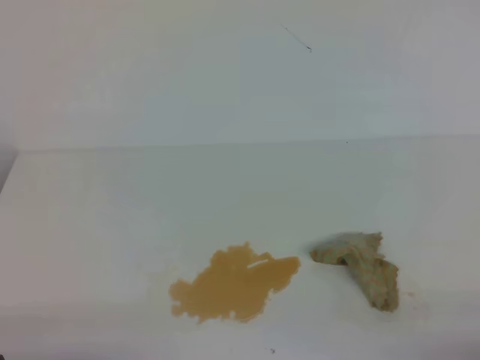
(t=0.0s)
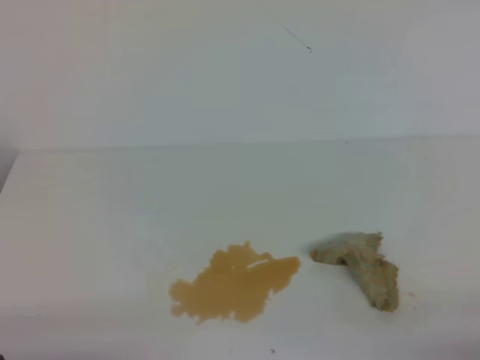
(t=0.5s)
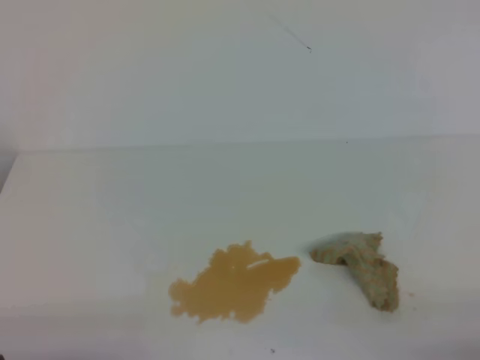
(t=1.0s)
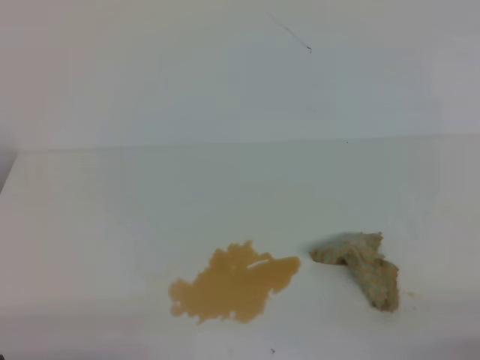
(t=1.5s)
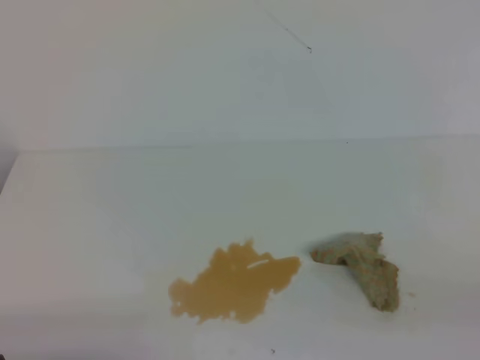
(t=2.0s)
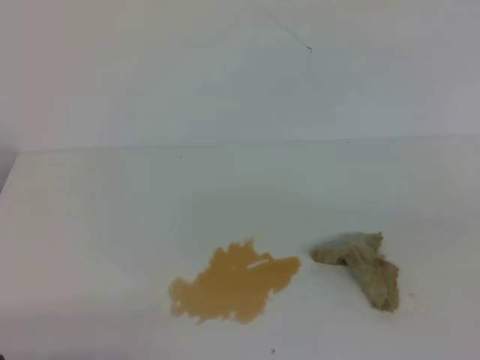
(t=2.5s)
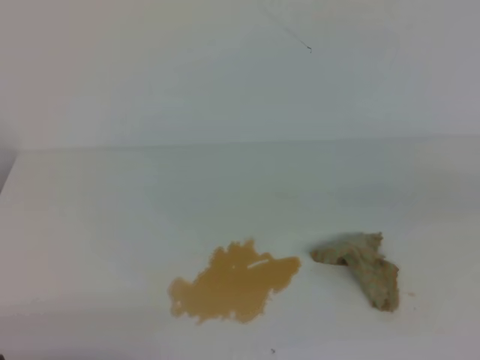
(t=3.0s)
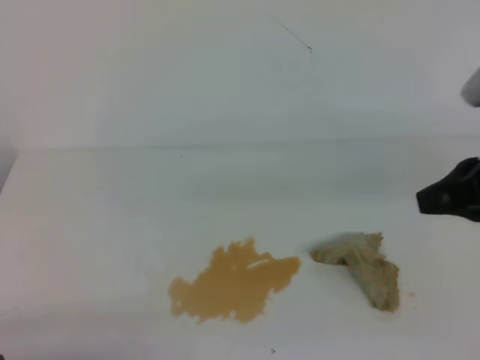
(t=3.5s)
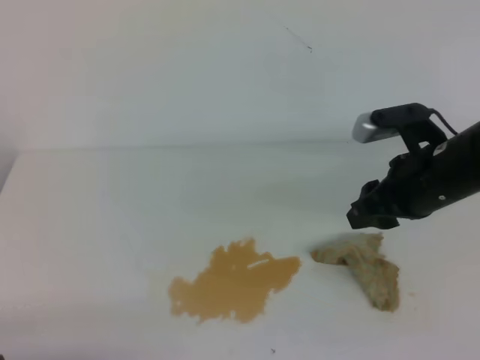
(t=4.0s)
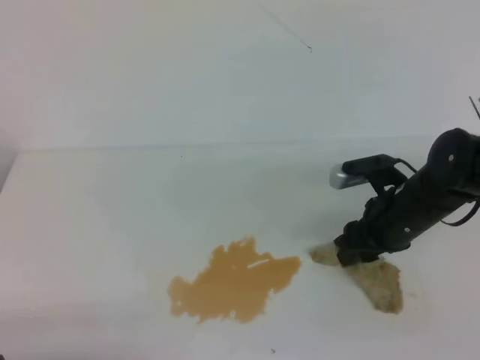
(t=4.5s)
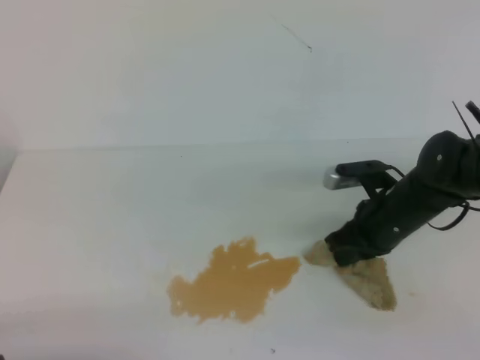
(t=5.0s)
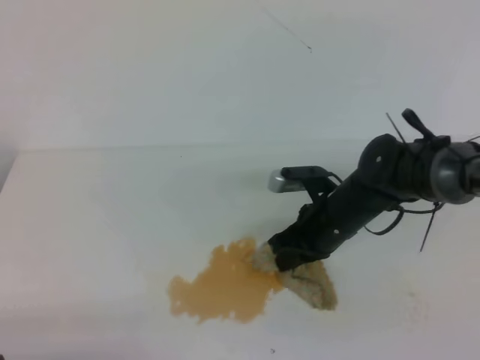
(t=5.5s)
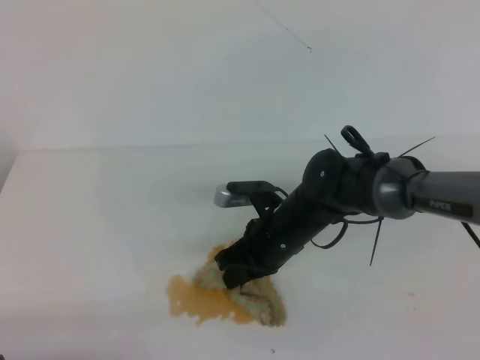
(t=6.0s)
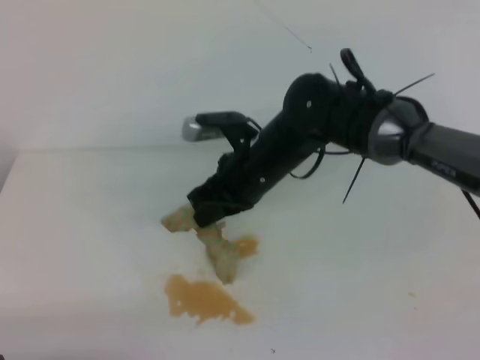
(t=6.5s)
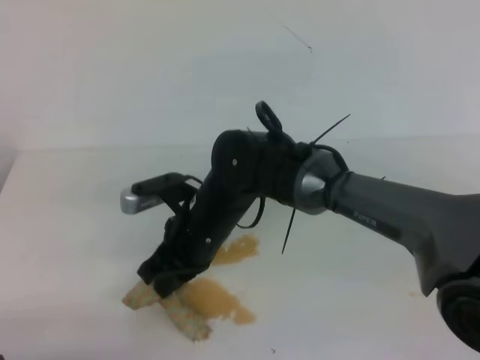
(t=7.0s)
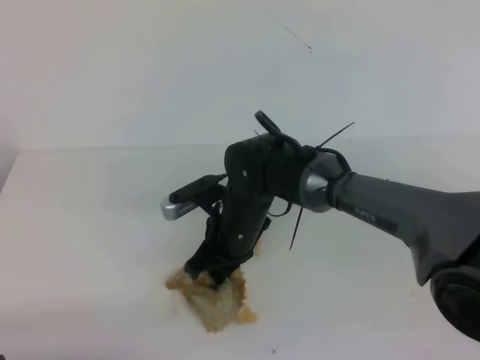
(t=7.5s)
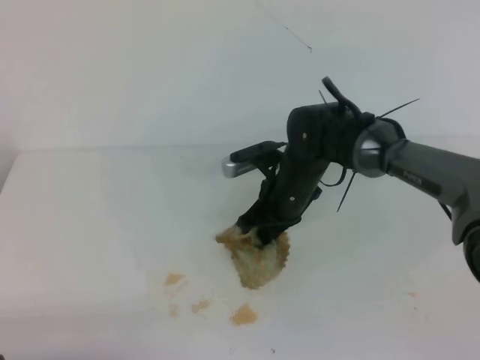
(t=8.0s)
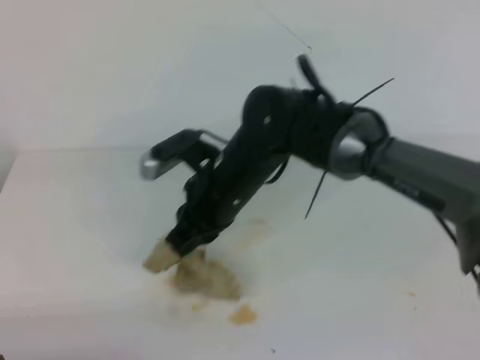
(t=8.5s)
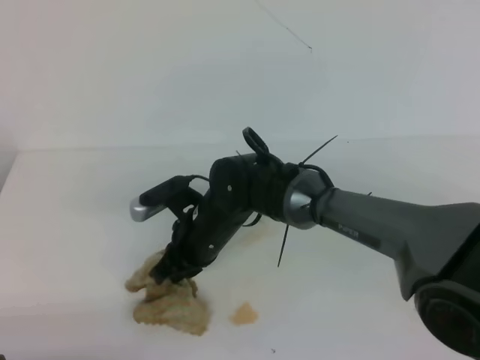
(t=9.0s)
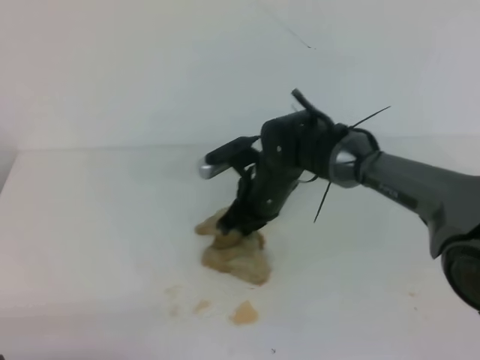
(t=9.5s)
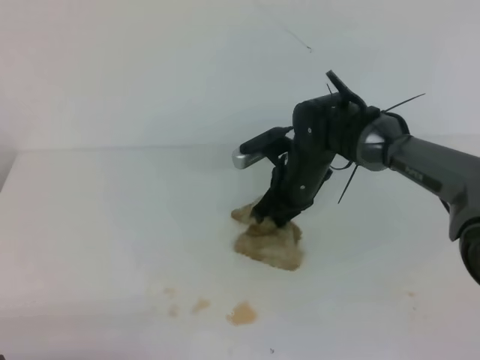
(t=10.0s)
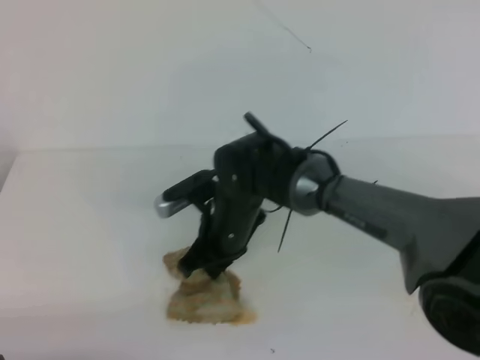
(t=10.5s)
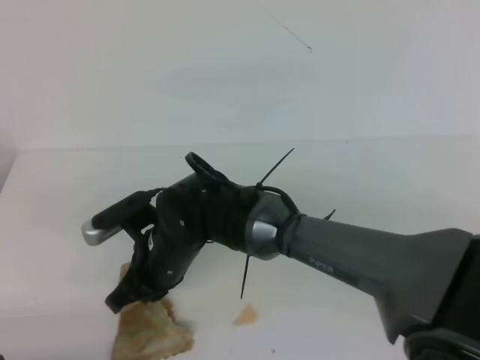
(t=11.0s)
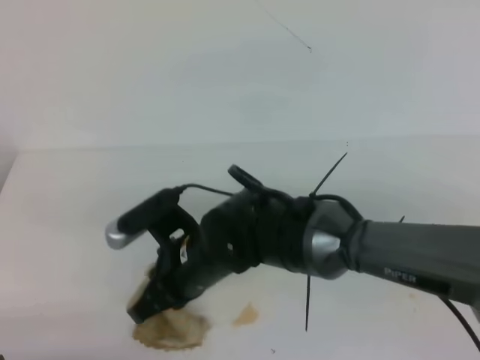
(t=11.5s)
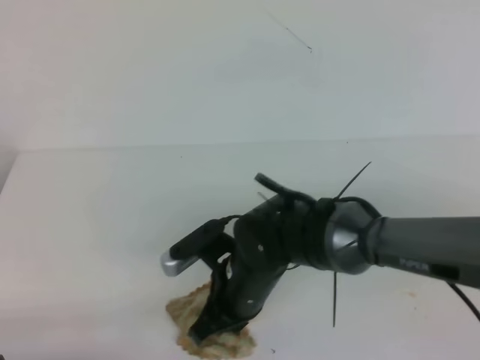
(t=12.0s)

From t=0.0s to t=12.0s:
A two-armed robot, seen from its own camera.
From t=2.0s to t=4.0s: The right gripper is displaced forward and to the left by about 30 cm, and opens up.
From t=4.0s to t=6.0s: The right gripper is displaced to the left and downward by about 20 cm, and closes.
From t=6.0s to t=8.0s: The right gripper is displaced forward by some 5 cm.
From t=8.0s to t=10.0s: The right gripper reaches about 10 cm to the left, then returns.
From t=10.0s to t=12.0s: The right gripper heads backward and to the left, covering some 15 cm.

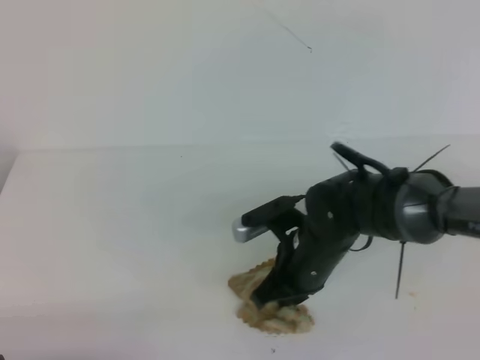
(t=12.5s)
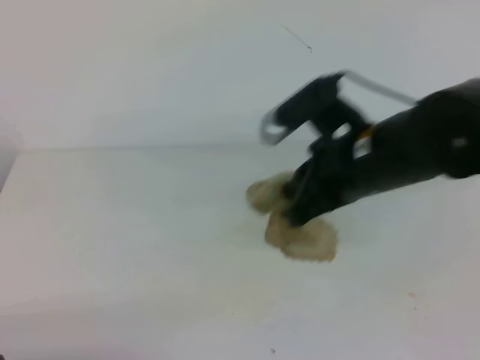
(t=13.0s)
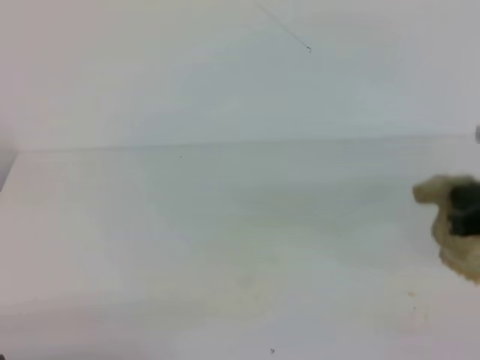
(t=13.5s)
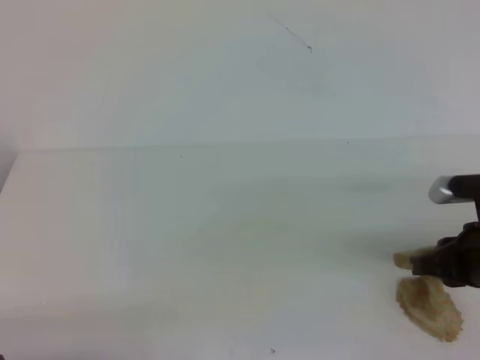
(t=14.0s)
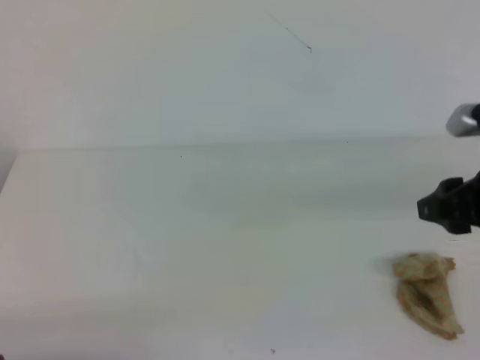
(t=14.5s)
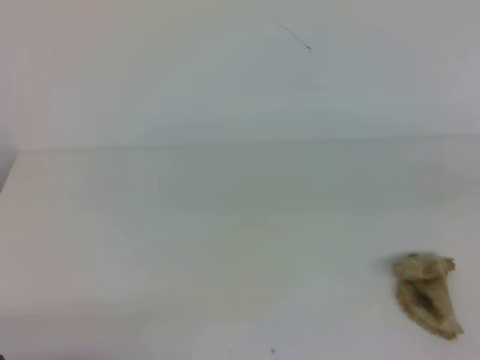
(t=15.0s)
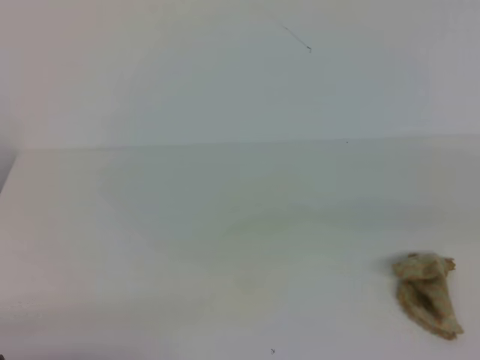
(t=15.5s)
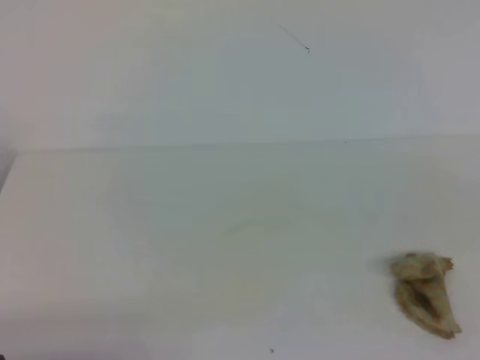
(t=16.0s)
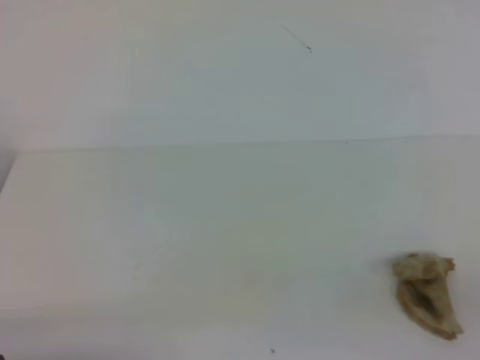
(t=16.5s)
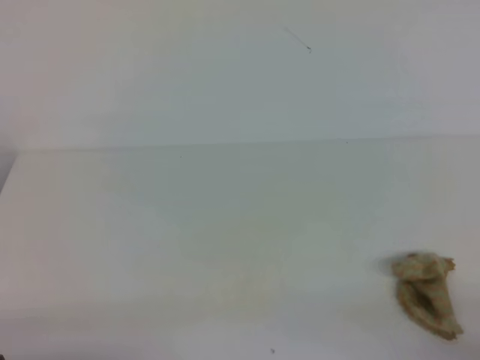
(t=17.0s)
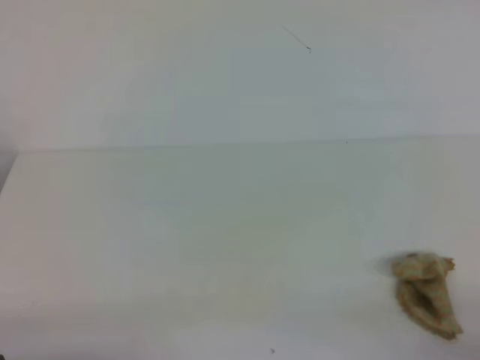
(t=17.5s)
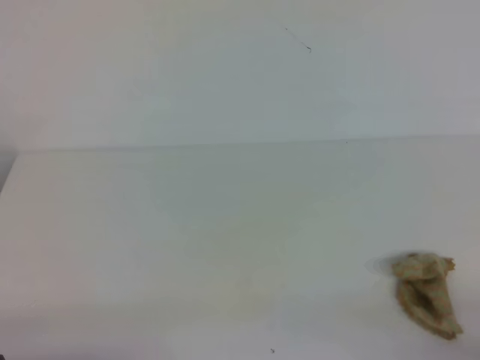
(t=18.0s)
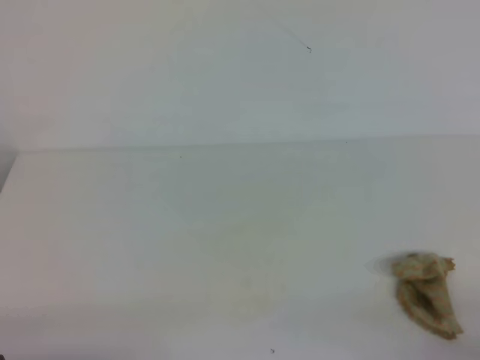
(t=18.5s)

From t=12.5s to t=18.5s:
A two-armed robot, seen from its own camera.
From t=12.5s to t=14.5s: The right gripper goes about 20 cm to the right and upward, and opens up.
From t=14.5s to t=16.5s: The right gripper shifts about 25 cm backward, and closes.

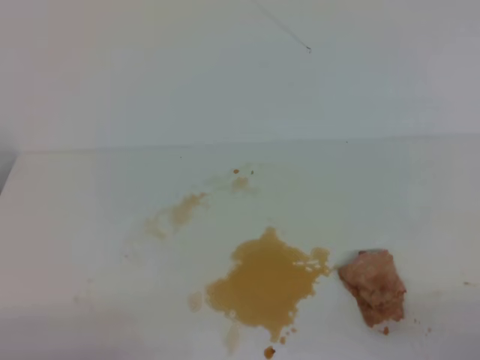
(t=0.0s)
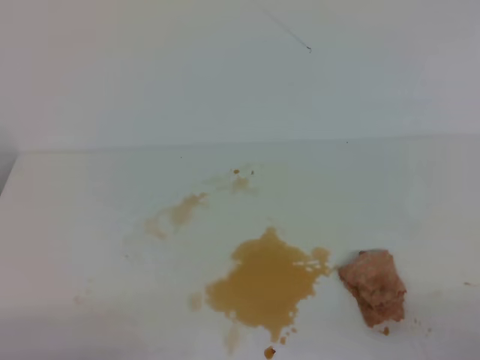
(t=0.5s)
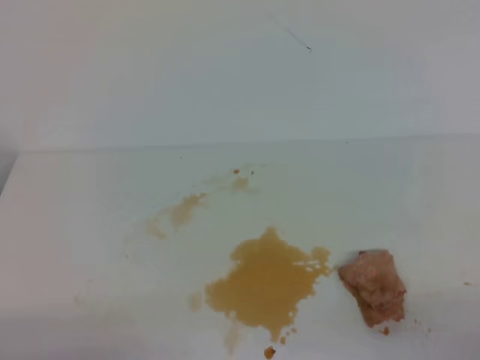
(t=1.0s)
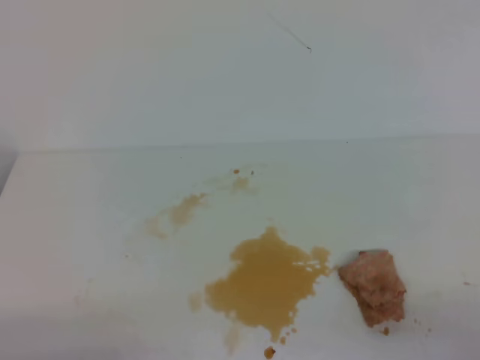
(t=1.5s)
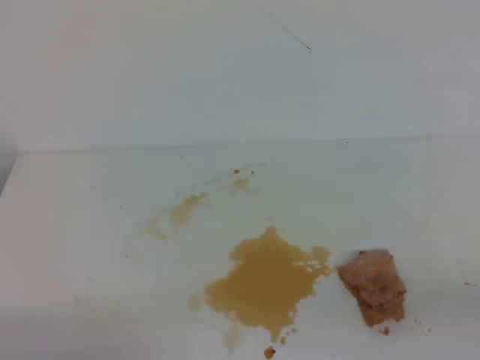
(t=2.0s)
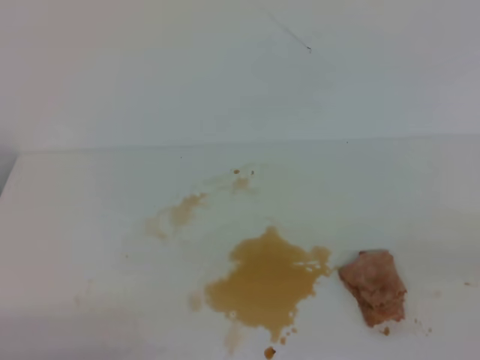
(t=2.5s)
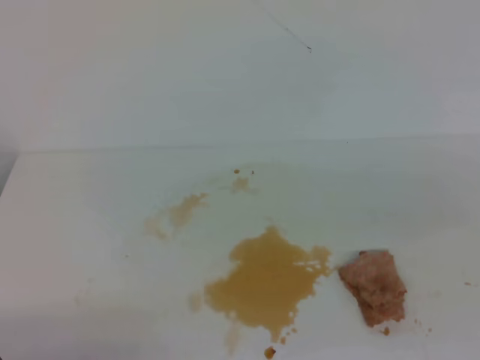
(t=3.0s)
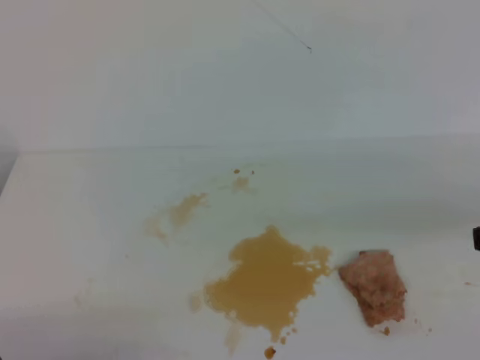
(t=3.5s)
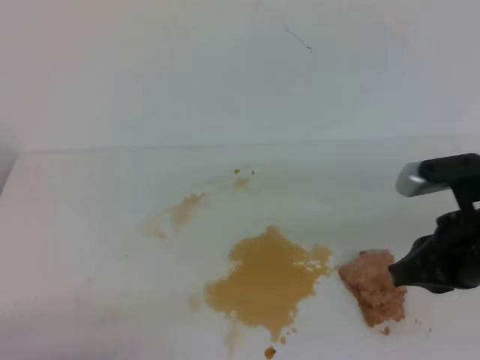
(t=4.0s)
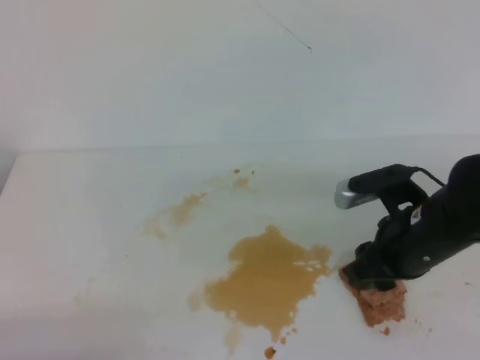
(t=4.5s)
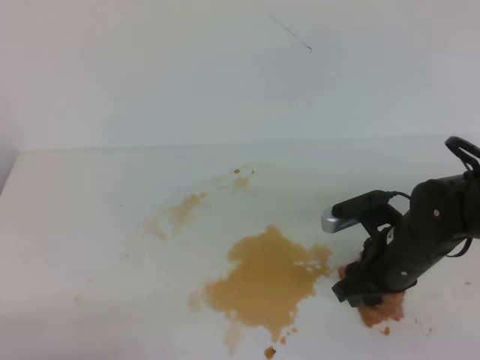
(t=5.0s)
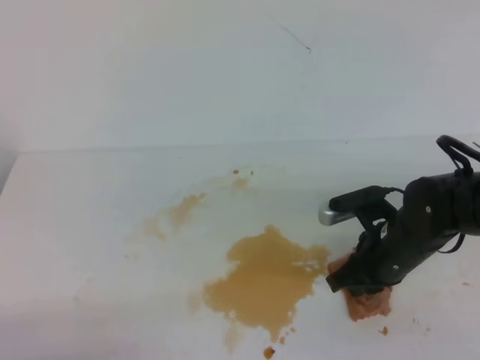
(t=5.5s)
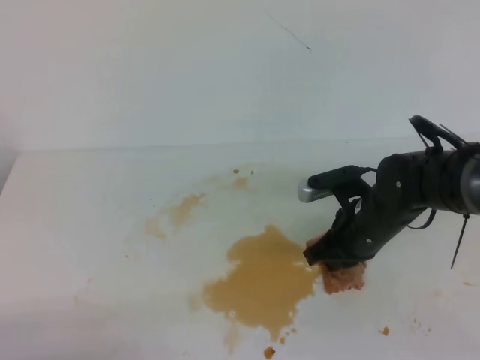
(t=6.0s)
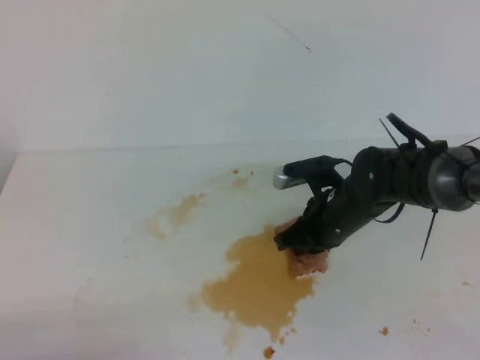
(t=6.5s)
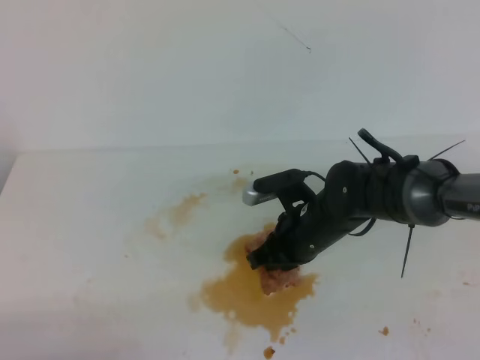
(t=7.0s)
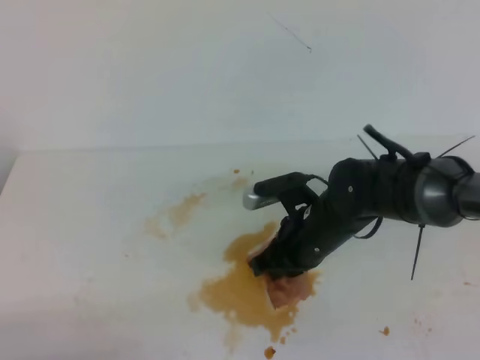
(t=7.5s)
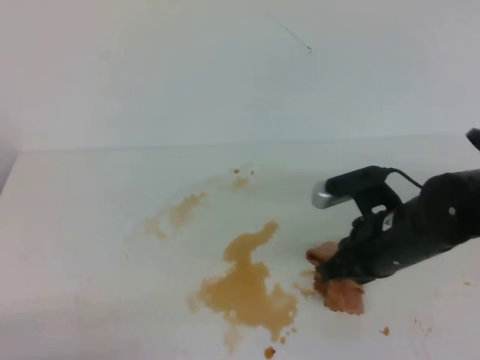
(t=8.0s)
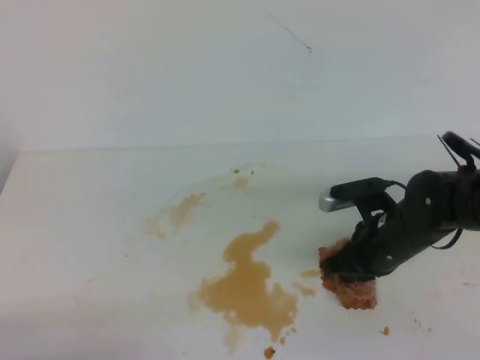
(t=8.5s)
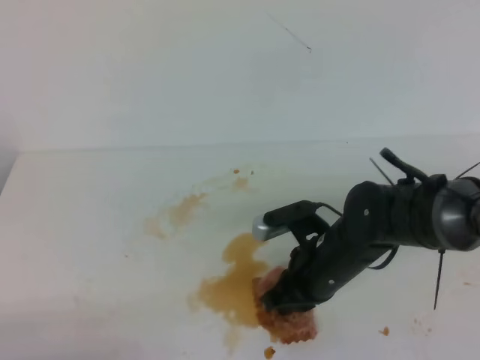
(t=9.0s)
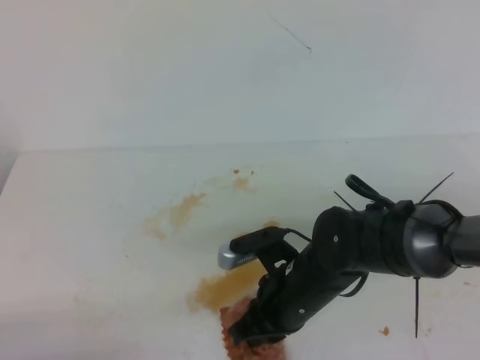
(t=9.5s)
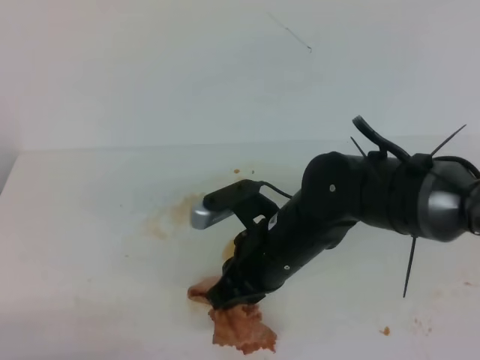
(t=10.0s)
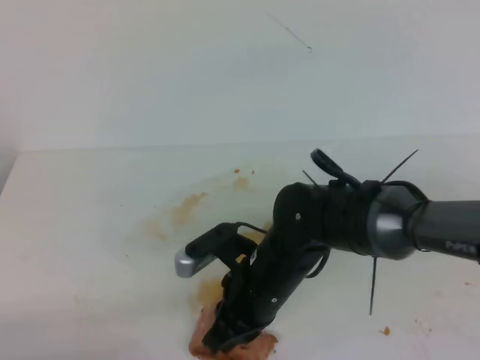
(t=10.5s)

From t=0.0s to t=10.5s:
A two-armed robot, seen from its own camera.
From t=2.0s to t=4.0s: The right gripper heads forward and to the left, covering approximately 20 cm.
From t=4.0s to t=6.5s: The right gripper moves downward, forward and to the left, about 25 cm, and opens, then closes once more.
From t=6.5s to t=8.5s: The right gripper moves approximately 5 cm.
From t=8.5s to t=10.5s: The right gripper heads to the left, covering about 15 cm.
